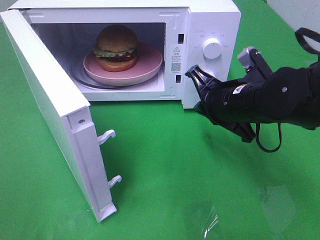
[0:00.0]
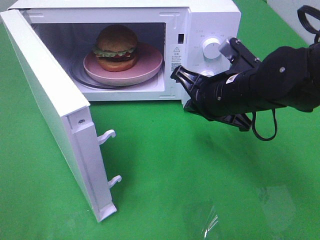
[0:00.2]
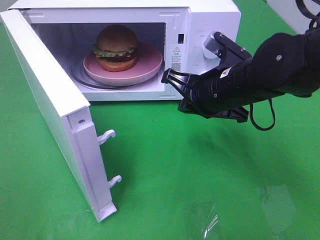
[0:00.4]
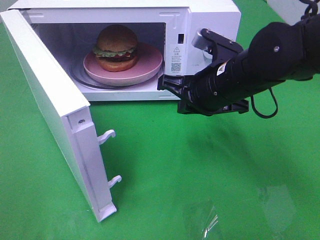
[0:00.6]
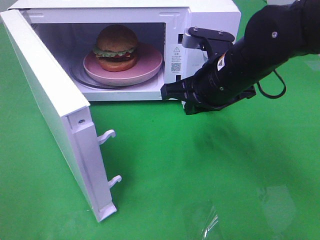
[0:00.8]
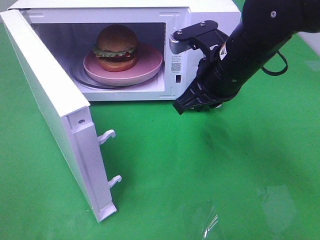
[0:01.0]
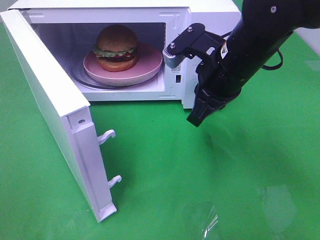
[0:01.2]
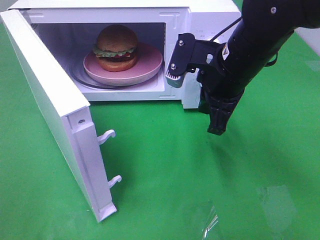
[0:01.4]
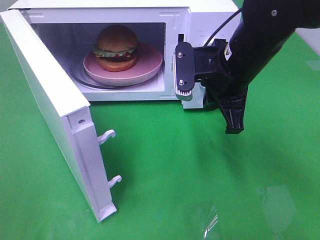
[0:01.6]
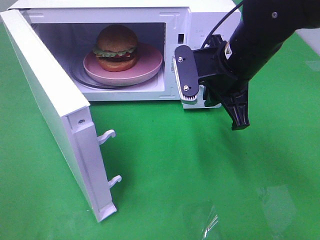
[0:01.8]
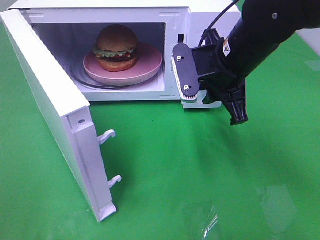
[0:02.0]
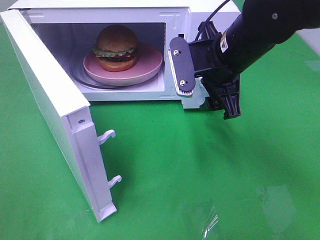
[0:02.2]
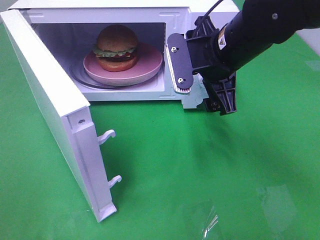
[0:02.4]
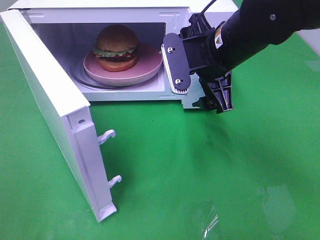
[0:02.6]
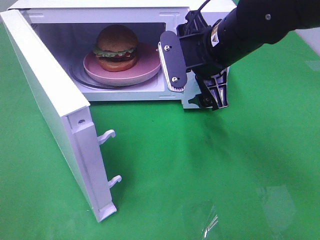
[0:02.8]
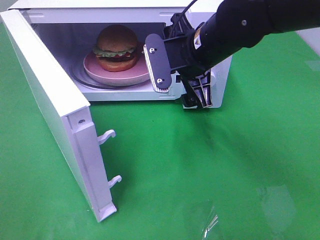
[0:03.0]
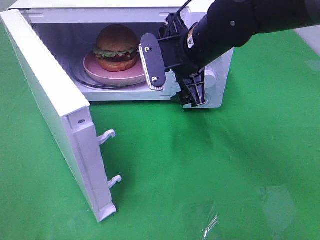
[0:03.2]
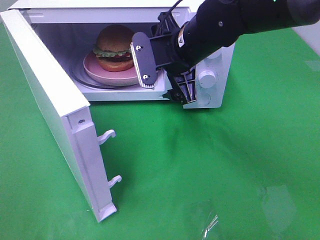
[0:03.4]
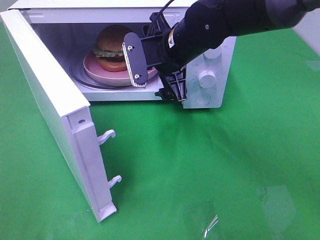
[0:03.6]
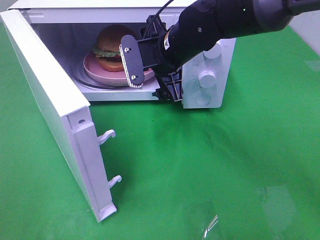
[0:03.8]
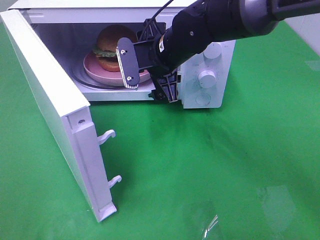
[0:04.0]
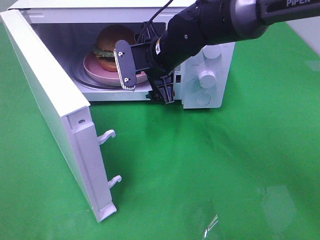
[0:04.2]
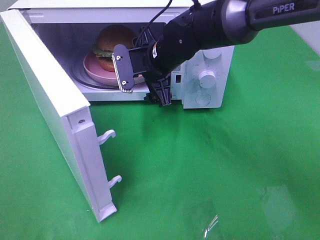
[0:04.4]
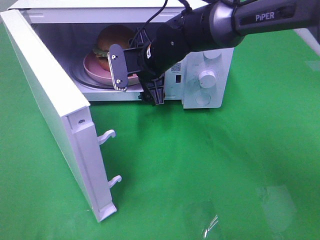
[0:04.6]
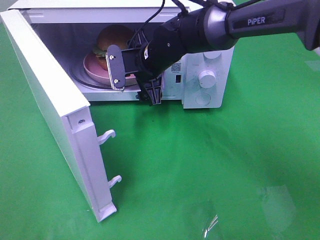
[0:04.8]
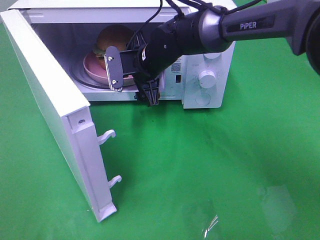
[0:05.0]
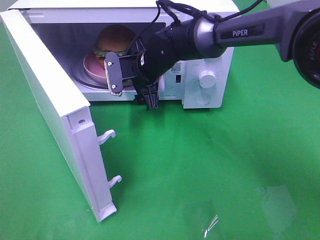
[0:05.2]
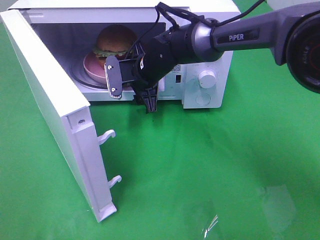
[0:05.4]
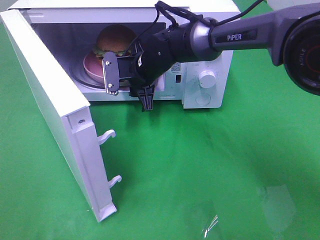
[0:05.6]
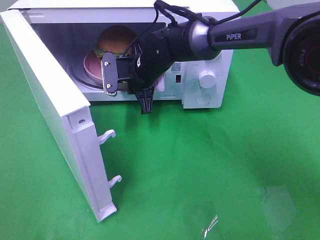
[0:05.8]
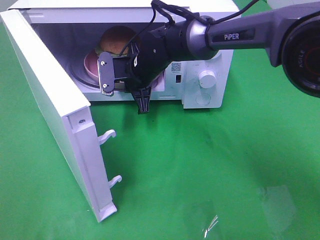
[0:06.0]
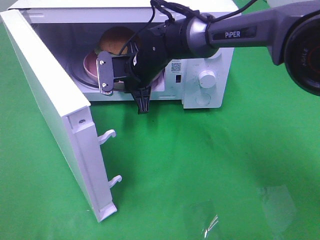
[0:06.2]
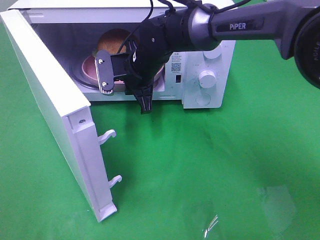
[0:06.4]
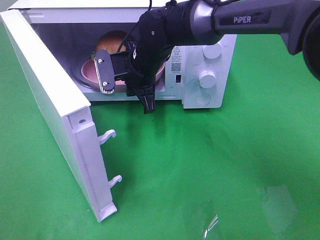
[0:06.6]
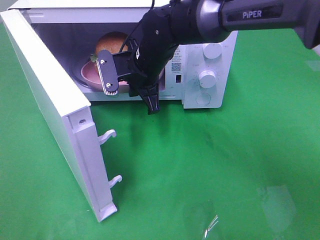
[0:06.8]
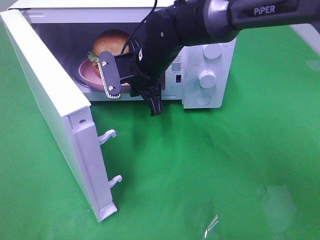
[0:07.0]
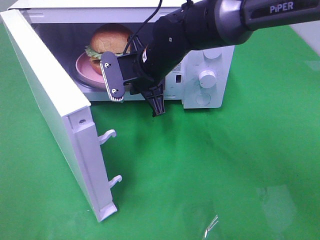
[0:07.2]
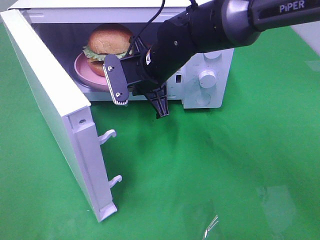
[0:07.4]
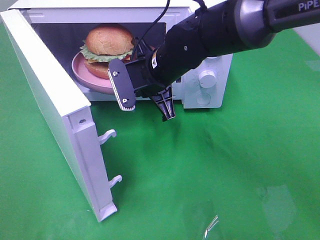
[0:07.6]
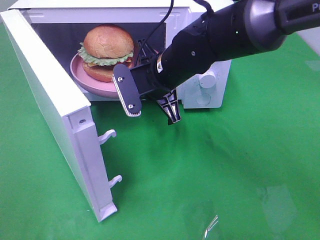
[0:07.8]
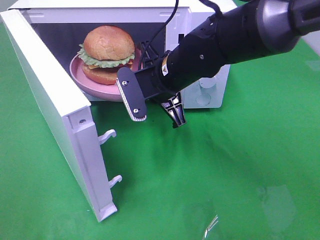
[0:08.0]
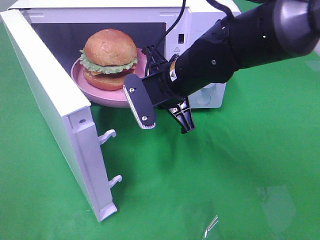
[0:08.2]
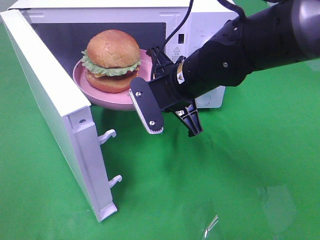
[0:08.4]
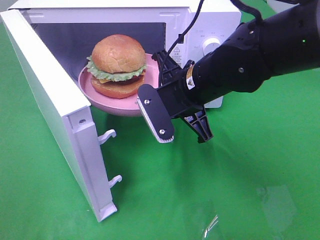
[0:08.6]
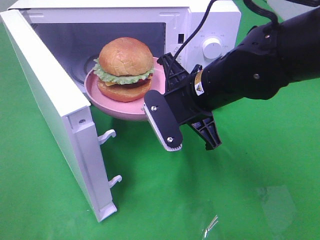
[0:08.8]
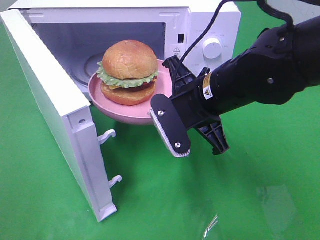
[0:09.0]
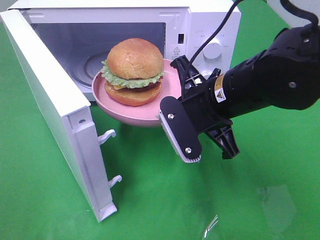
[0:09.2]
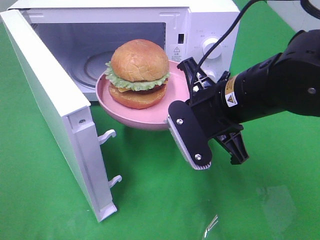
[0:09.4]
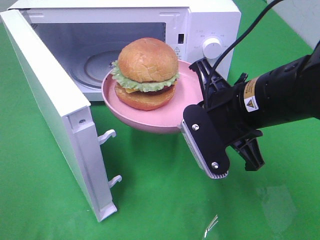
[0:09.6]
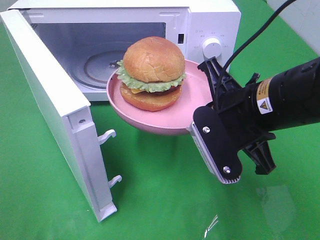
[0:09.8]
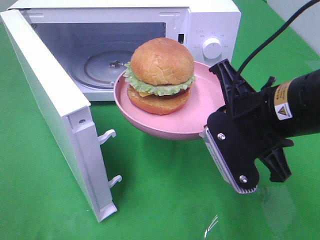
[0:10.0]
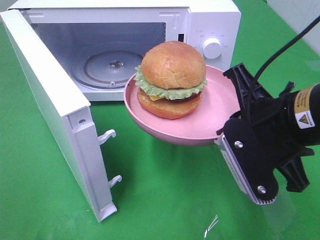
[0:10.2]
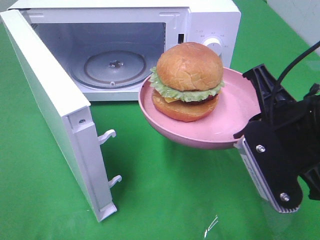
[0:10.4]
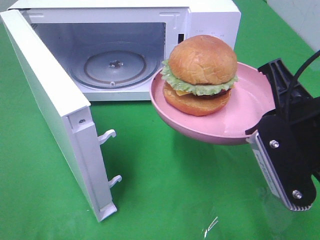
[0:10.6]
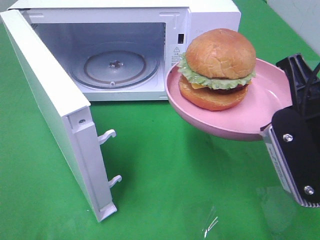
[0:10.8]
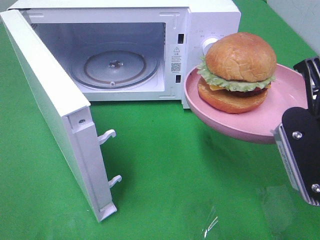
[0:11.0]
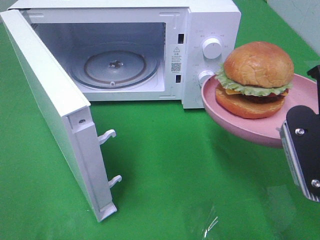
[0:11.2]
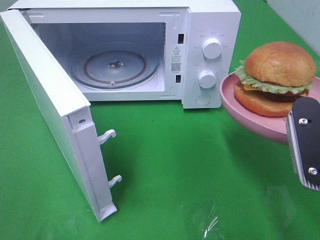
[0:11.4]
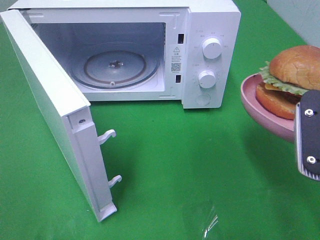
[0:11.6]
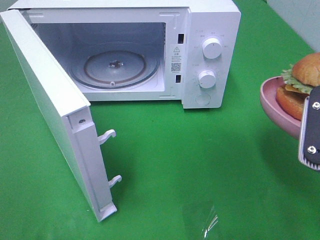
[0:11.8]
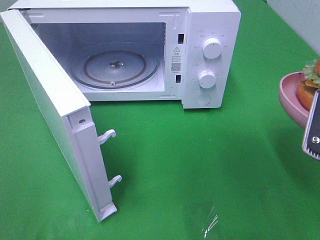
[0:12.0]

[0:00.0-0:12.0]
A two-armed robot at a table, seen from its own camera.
Task of the whole recording: Heat the burger.
Step, 0:00.0 to 0:06.0: Right hand: grab the plate with the hamburger.
0:00.0 to 0:01.6: The right gripper heads upward, covering some 5 cm.
0:01.6 to 0:03.0: The right gripper moves approximately 5 cm, and opens its fingers.
0:03.0 to 0:04.4: The right gripper is displaced forward, to the left and downward by approximately 10 cm.
0:04.4 to 0:06.0: The right gripper moves approximately 5 cm, and closes its fingers.
0:06.0 to 0:07.6: The right gripper heads backward, covering roughly 5 cm.
0:07.6 to 0:09.0: The right gripper goes some 10 cm backward and to the right.
0:09.0 to 0:10.4: The right gripper is displaced backward and to the right by approximately 15 cm.
0:10.4 to 0:12.0: The right gripper shifts roughly 5 cm to the right.

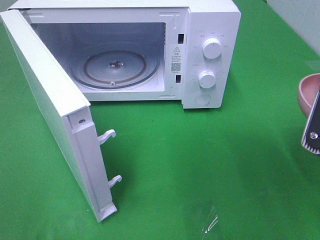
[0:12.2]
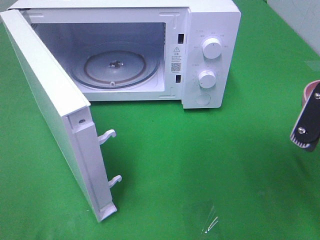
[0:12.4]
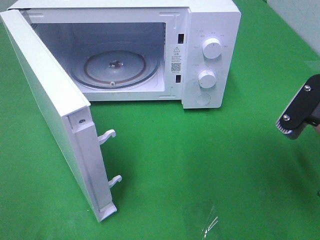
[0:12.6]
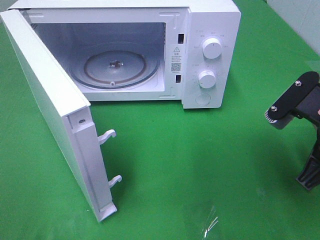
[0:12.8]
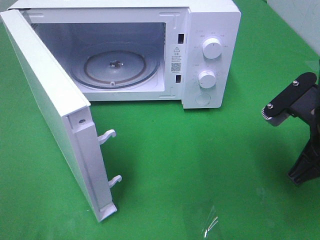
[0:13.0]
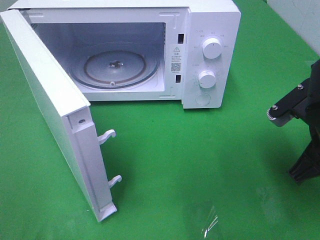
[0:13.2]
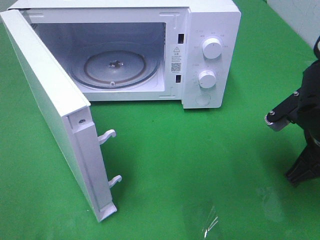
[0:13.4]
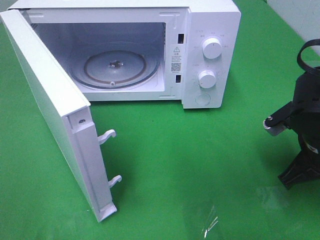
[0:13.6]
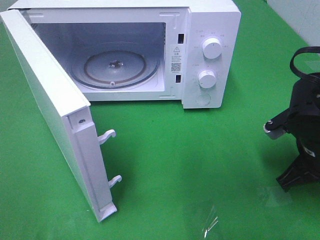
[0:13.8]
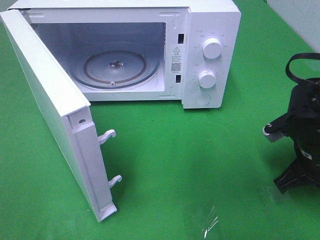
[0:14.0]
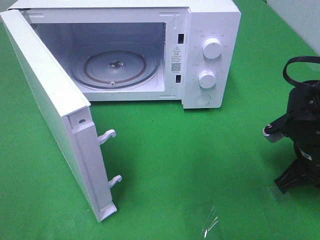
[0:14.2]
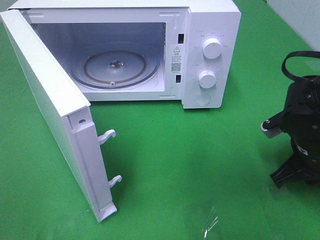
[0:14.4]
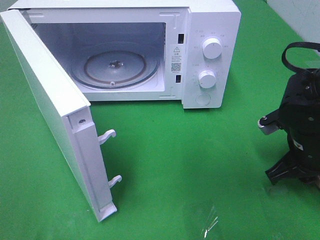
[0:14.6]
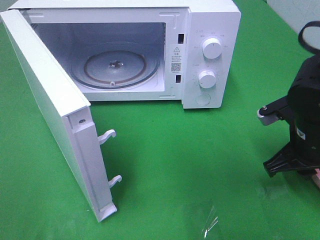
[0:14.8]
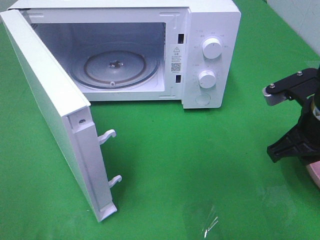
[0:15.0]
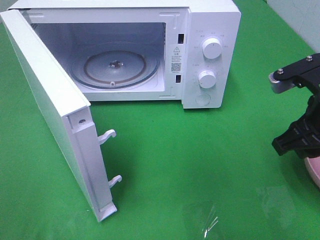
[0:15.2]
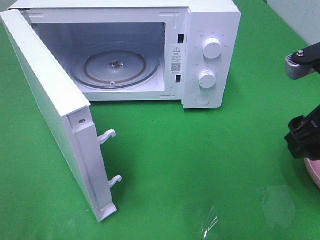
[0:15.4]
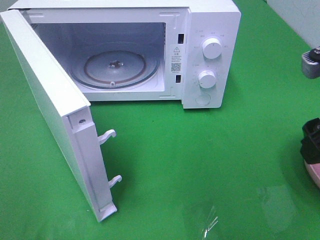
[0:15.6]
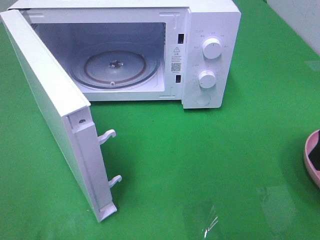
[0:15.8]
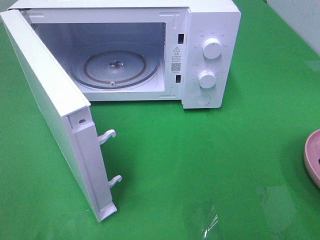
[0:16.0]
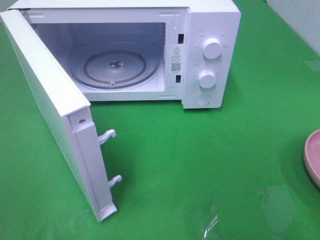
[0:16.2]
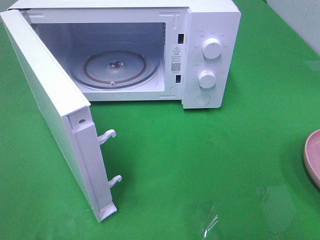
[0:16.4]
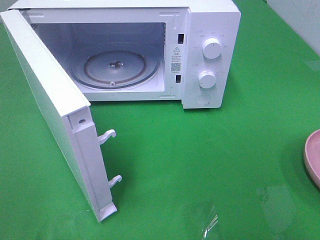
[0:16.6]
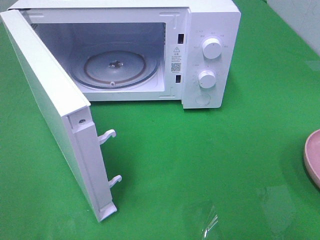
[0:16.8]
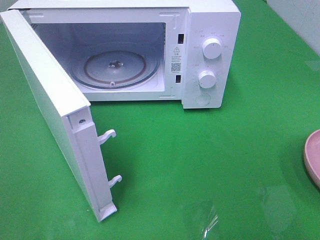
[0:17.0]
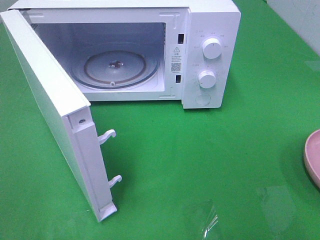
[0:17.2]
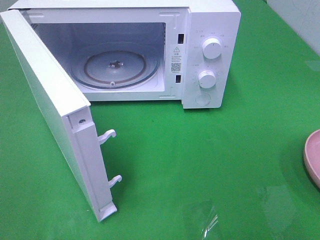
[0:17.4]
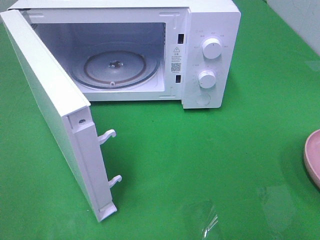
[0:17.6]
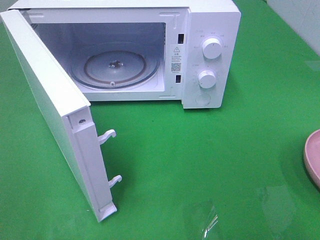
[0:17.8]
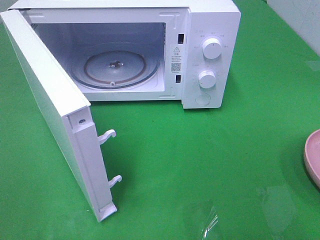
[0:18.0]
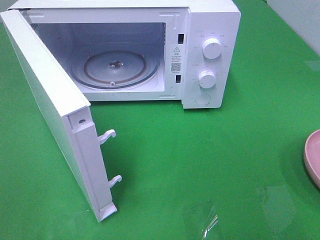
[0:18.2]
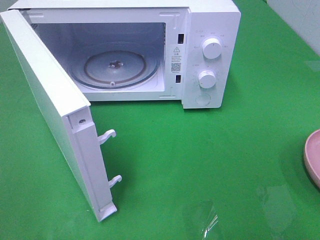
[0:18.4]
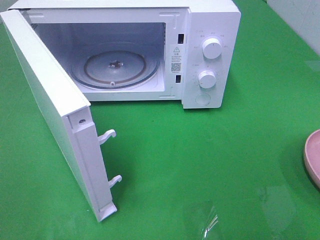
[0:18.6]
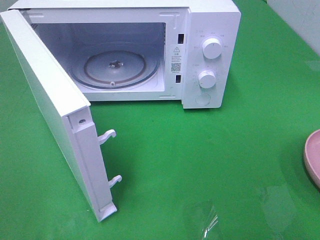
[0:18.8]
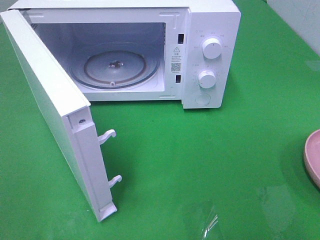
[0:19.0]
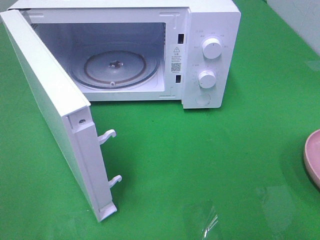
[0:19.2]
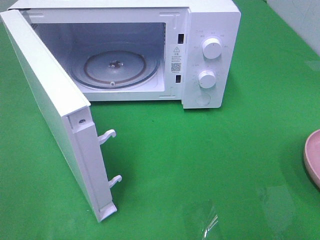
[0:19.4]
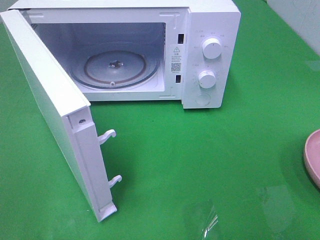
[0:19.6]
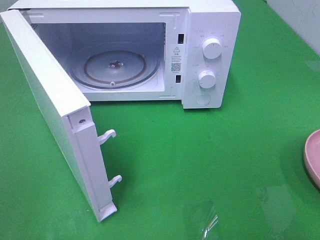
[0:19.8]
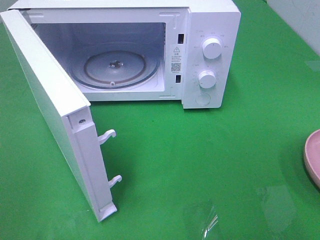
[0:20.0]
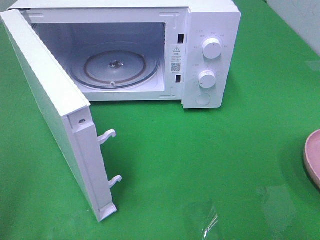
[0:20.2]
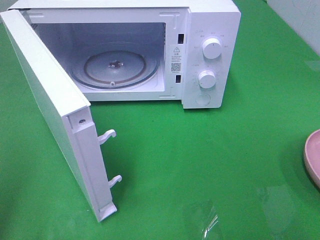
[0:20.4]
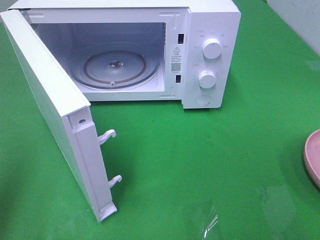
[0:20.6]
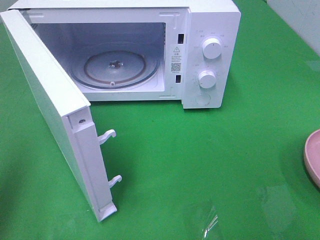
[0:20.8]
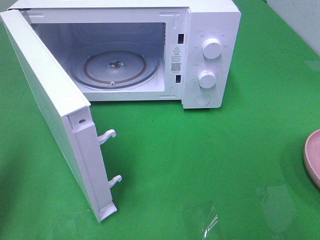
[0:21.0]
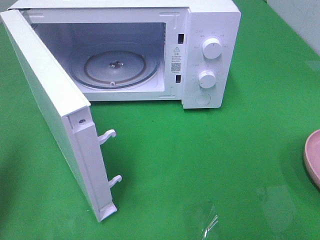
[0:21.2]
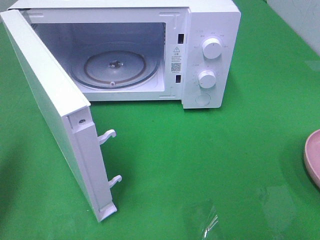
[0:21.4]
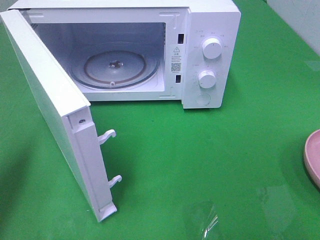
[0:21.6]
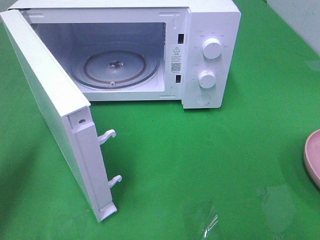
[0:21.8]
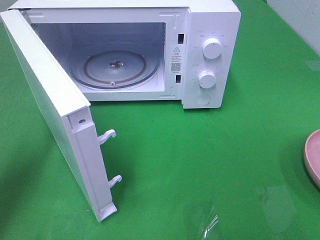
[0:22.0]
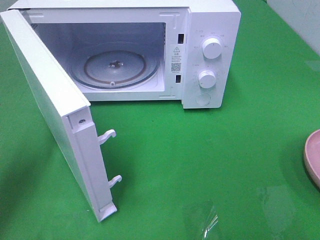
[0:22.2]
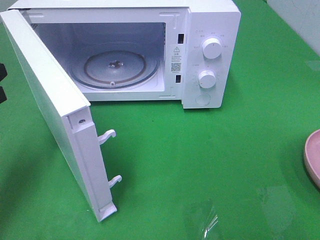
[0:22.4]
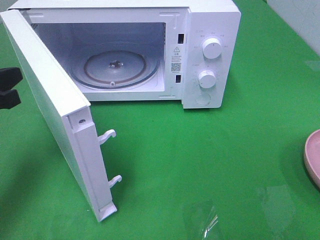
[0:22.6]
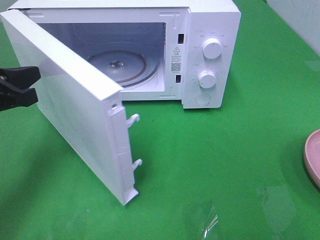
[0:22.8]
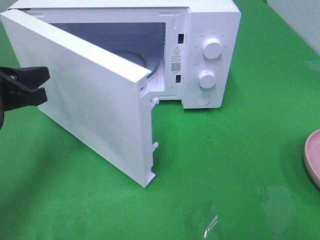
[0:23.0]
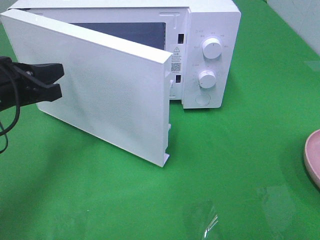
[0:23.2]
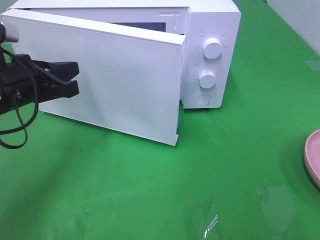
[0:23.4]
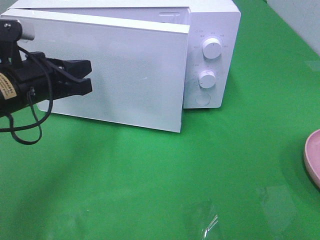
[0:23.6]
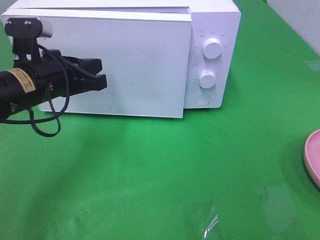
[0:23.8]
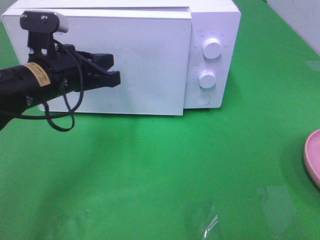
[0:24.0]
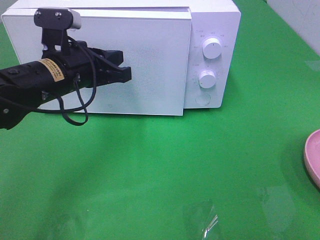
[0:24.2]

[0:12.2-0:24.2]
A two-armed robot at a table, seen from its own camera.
Task of the whole recording: Heat the burger.
Step, 0:12.2 to 0:15.2: Right hand: place the plate on the table.
0:12.2 to 0:13.8: The right gripper heads downward and forward, covering about 15 cm.
0:13.8 to 0:15.2: The right gripper moves upward, approximately 10 cm, and opens.
0:15.2 to 0:16.6: The right gripper is displaced backward and upward by roughly 20 cm.
0:19.8 to 0:21.2: The left gripper moves forward, some 15 cm, and closes.
0:21.2 to 0:22.6: The left gripper moves forward, downward and to the right, some 10 cm.
0:22.6 to 0:24.2: The left gripper is displaced to the right and forward by roughly 15 cm.
